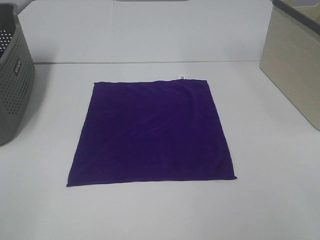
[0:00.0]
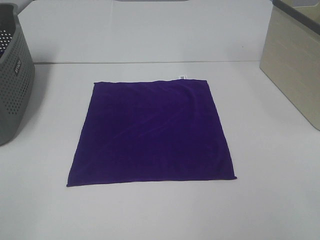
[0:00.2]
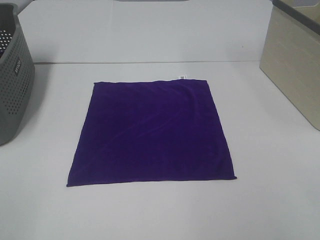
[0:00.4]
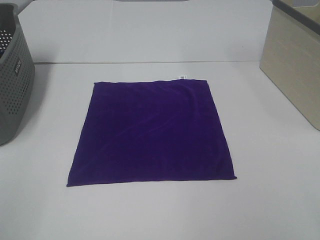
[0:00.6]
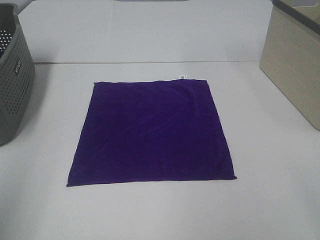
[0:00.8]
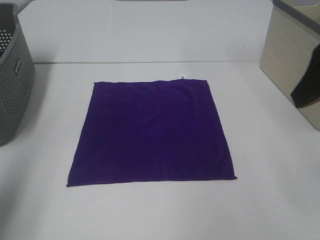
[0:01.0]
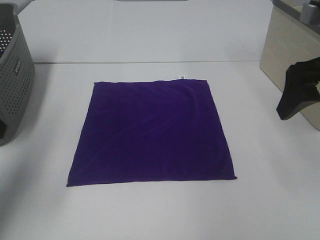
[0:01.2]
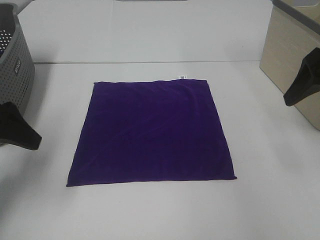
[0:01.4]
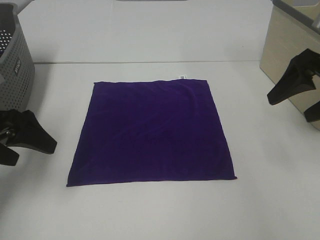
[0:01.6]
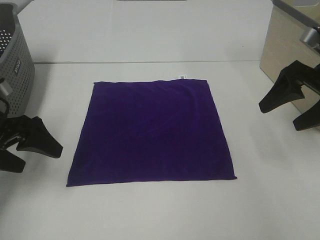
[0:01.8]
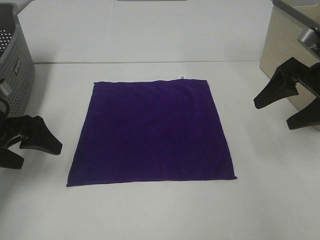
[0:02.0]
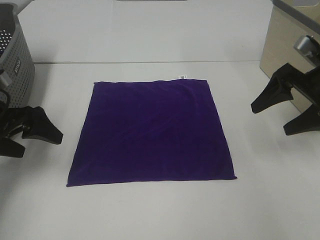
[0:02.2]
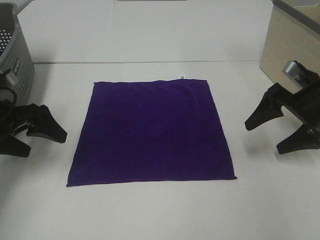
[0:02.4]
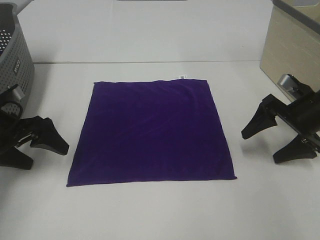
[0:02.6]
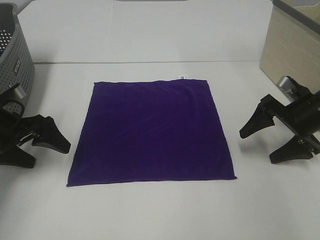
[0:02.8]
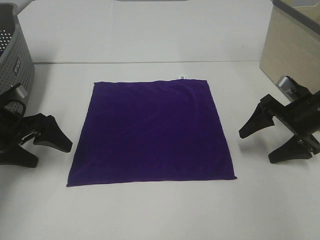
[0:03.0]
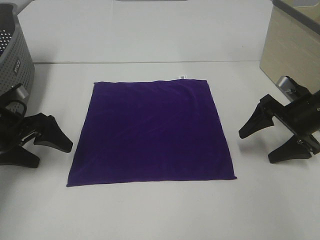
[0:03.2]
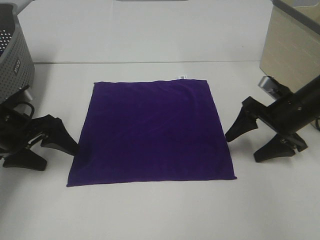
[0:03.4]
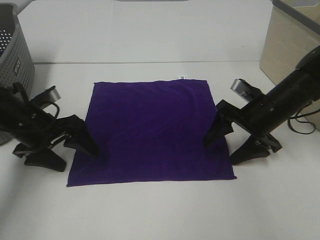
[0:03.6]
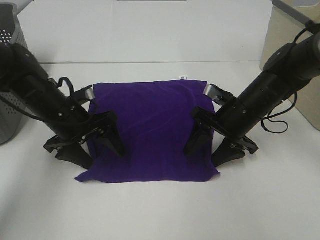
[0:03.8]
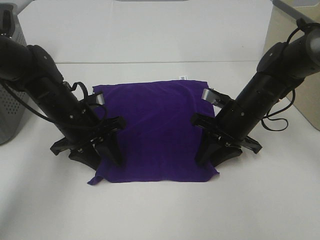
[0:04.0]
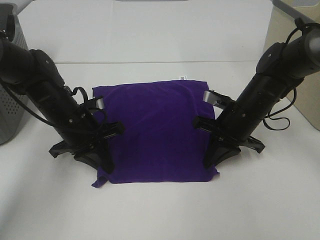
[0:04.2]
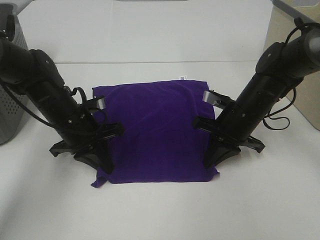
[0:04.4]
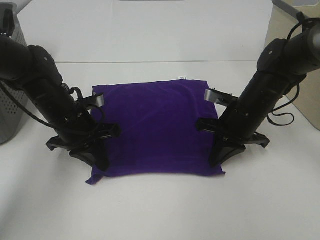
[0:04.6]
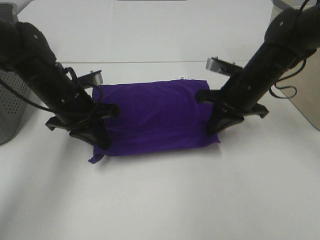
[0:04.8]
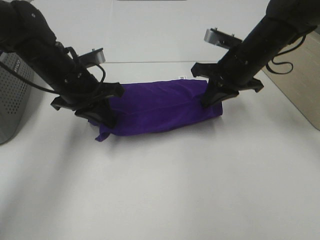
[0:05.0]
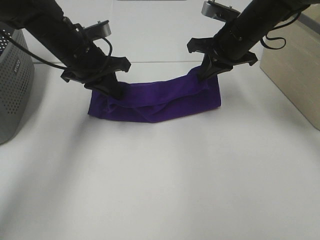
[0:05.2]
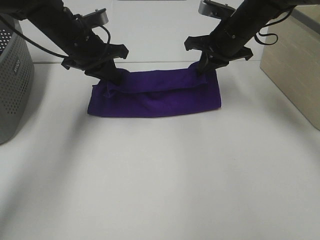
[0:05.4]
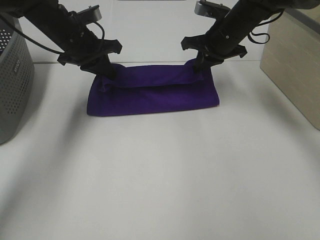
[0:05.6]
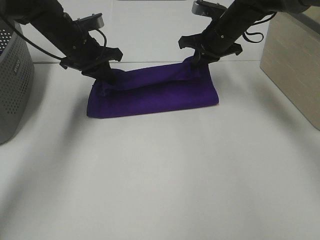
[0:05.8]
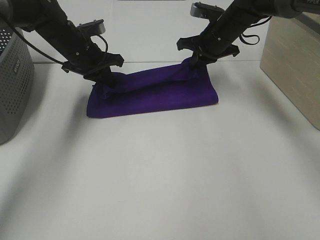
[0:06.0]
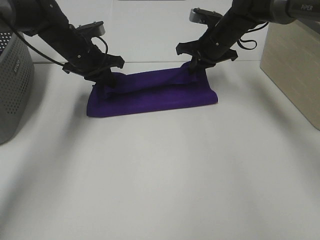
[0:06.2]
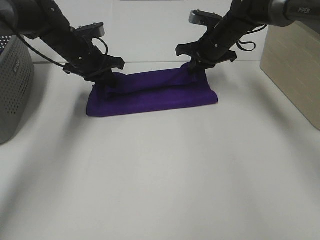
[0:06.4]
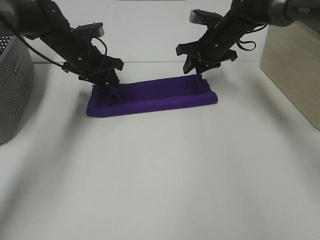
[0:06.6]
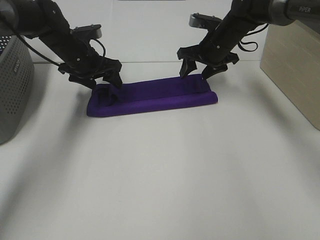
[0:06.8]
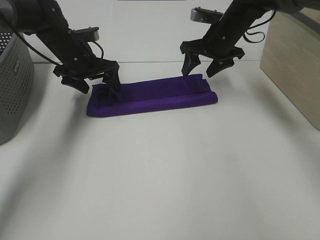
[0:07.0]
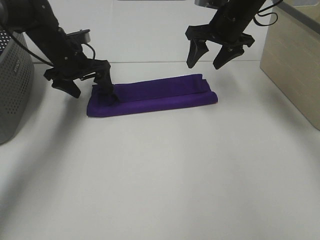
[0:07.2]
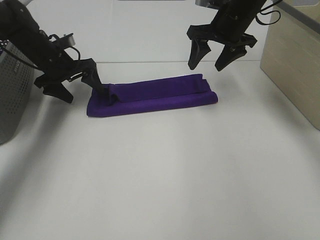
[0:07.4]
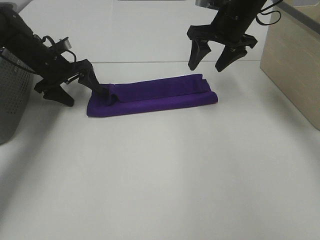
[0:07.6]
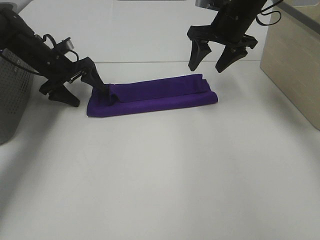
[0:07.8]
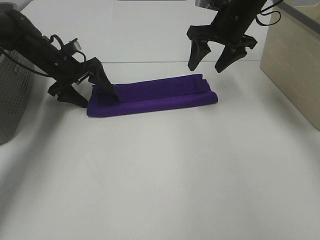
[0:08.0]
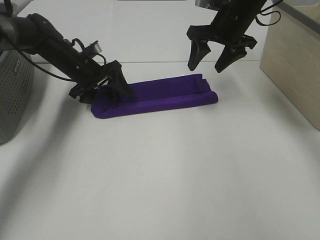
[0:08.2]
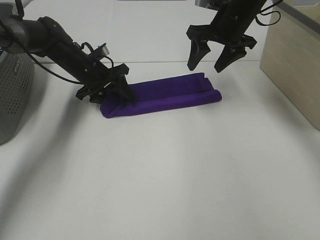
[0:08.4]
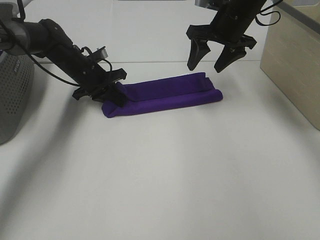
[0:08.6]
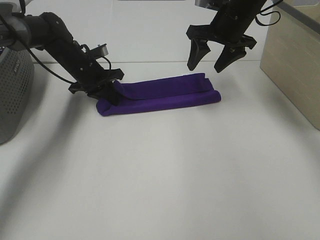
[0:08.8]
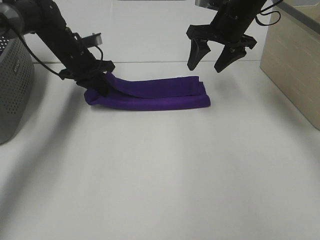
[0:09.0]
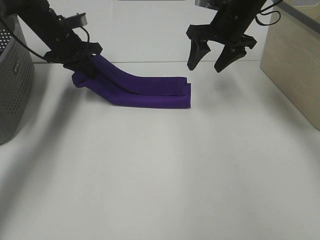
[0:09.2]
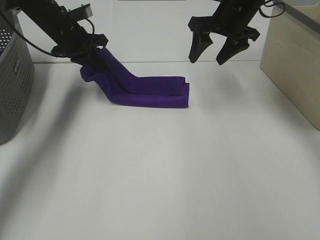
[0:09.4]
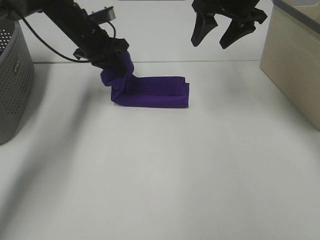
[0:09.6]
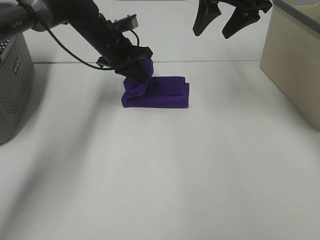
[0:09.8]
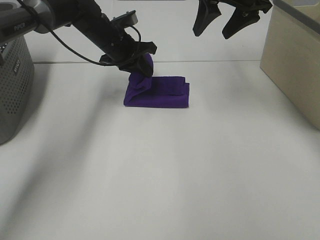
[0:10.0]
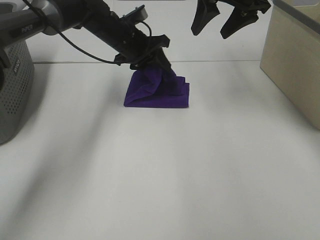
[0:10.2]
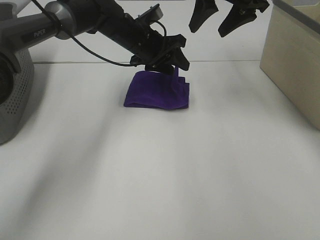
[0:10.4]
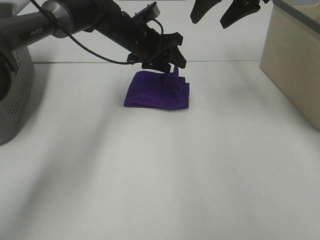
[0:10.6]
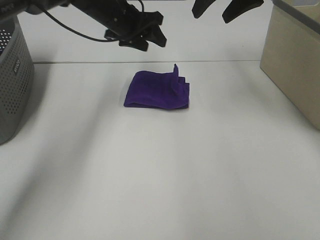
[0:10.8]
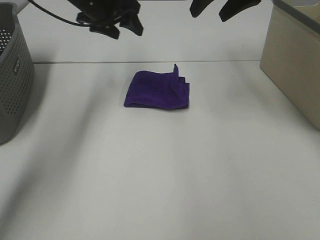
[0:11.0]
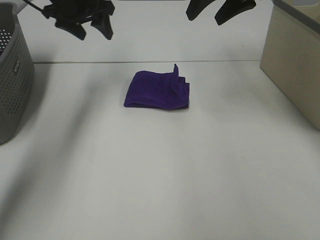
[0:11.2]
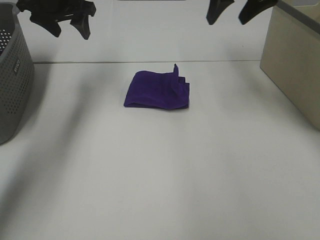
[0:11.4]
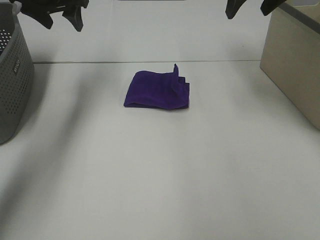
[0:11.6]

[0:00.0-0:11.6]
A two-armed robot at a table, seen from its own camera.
Task of the whole recording: Fold towels.
Step, 0:00.0 to 0:04.6: Left hand: grab the bottom left corner of purple towel.
Step, 0:00.0 to 0:04.6: Right hand: grab the bottom right corner of purple towel.
Step, 0:04.8 to 0:06.4: Left hand: fold the purple towel up.
Step, 0:04.8 to 0:06.4: Right hand: fold the purple towel up.
Step, 0:06.6 to 0:10.2: Left hand: fold the purple towel from left to right.
0:00.0 to 0:01.4: Both grippers move forward, about 25 cm.
0:01.4 to 0:02.8: The right gripper is displaced downward by approximately 15 cm, while the left gripper shifts approximately 10 cm downward and forward.
0:02.8 to 0:04.4: The left gripper goes roughly 15 cm to the right, and closes; the right gripper goes about 15 cm to the left, and closes.
0:04.4 to 0:05.8: Both grippers move forward and upward, roughly 15 cm.
0:05.8 to 0:07.2: The right gripper opens. Meanwhile the left gripper shifts by roughly 5 cm, and opens.
0:07.2 to 0:08.8: The left gripper shifts by some 5 cm, and closes up.
0:08.8 to 0:10.2: The left gripper is displaced to the right and upward by about 15 cm, and opens its fingers; the right gripper travels upward by roughly 10 cm.
0:10.2 to 0:11.6: The left gripper is displaced to the left and upward by about 20 cm; the right gripper shifts by about 5 cm.

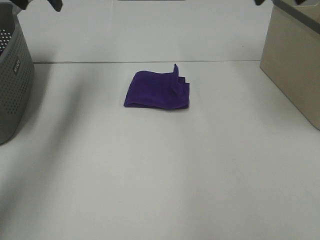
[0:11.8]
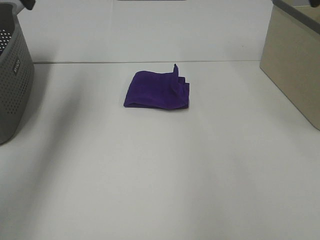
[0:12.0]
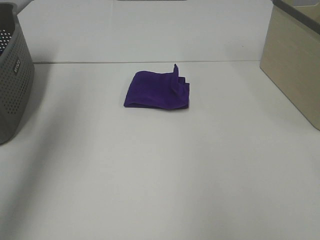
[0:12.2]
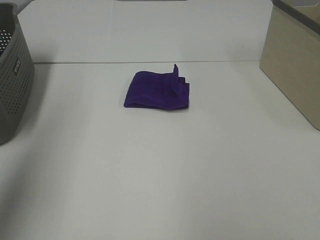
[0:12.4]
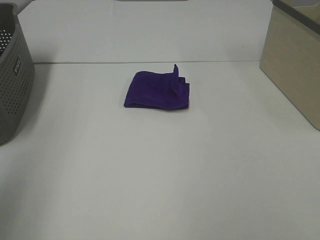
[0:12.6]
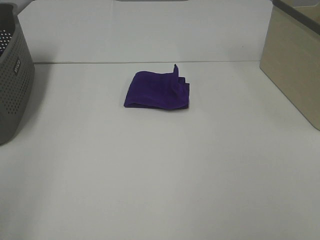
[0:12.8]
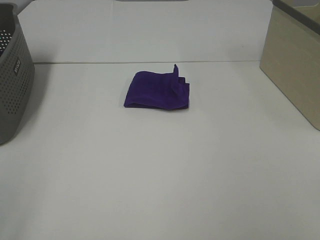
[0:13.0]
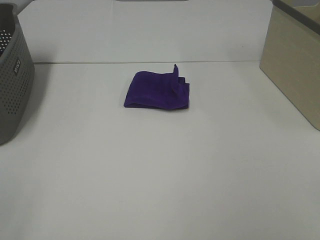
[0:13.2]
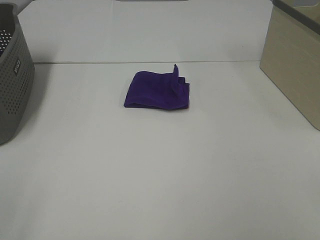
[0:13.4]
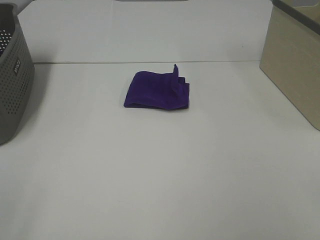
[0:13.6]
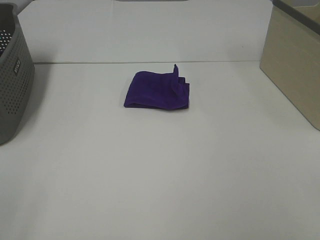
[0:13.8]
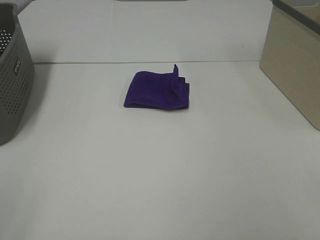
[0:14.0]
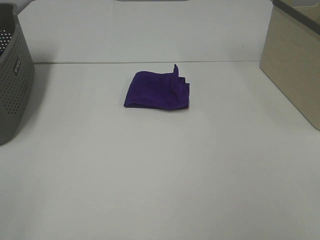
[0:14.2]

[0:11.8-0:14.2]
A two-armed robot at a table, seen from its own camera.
Task of the whole recording: Fold towels.
0:11.8 to 0:13.0: The grippers both shift backward by some 40 cm.

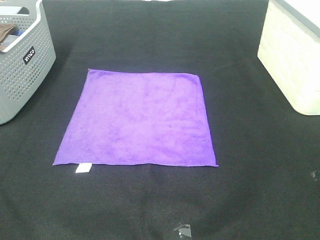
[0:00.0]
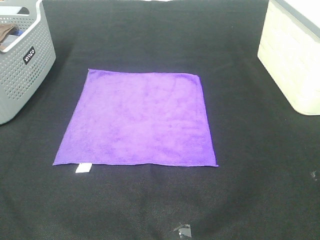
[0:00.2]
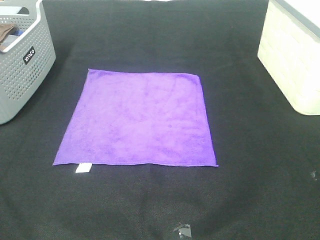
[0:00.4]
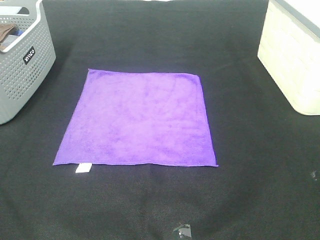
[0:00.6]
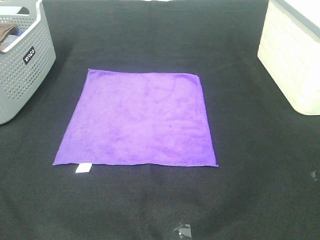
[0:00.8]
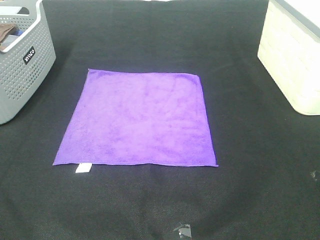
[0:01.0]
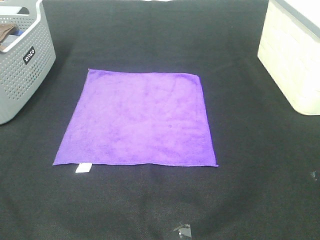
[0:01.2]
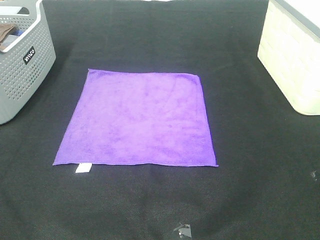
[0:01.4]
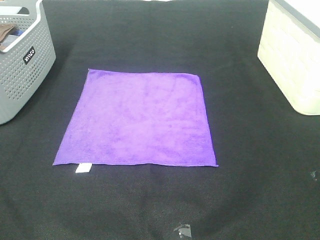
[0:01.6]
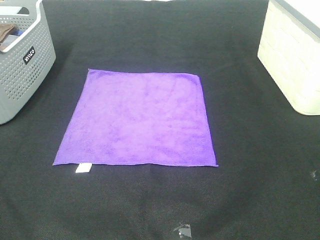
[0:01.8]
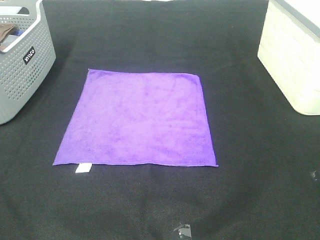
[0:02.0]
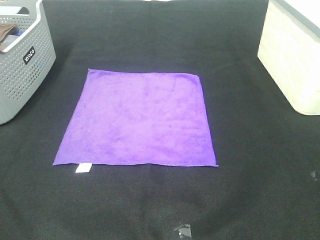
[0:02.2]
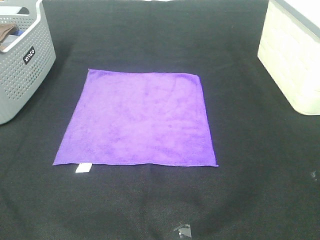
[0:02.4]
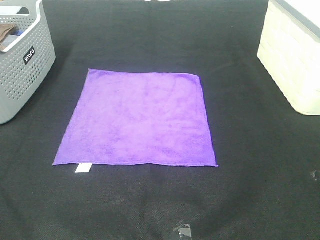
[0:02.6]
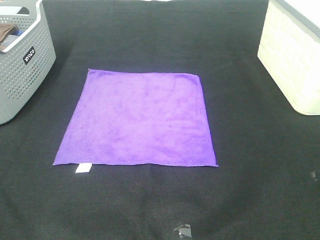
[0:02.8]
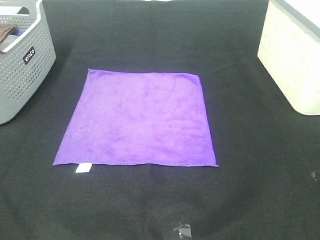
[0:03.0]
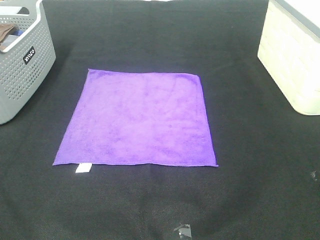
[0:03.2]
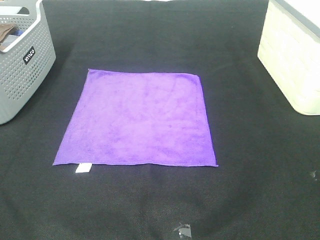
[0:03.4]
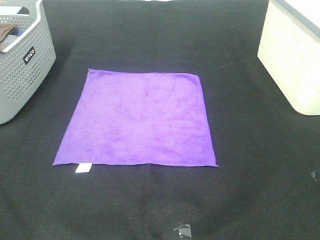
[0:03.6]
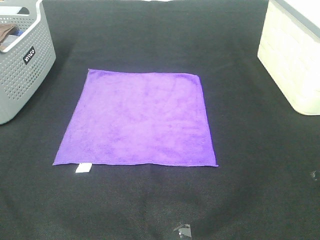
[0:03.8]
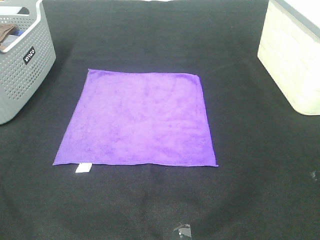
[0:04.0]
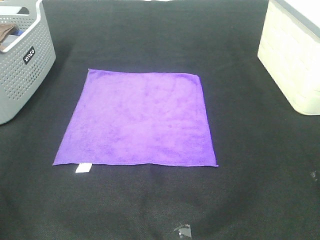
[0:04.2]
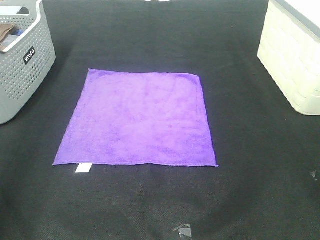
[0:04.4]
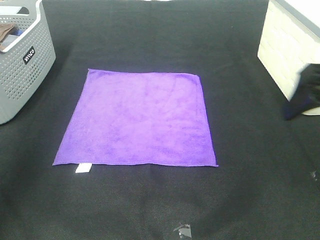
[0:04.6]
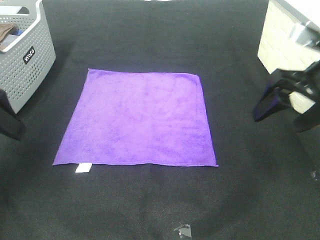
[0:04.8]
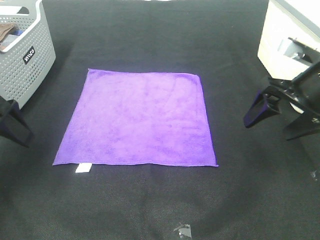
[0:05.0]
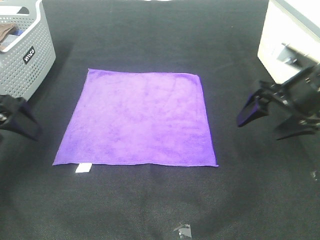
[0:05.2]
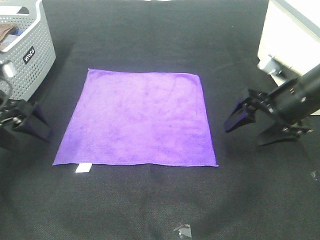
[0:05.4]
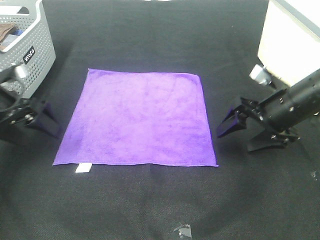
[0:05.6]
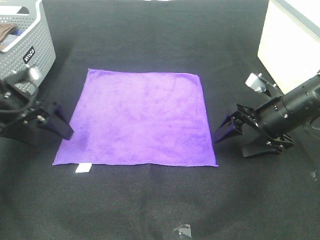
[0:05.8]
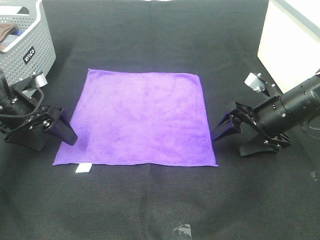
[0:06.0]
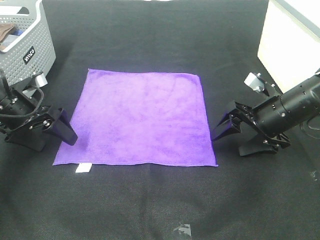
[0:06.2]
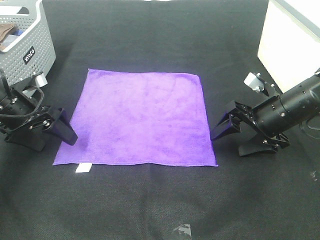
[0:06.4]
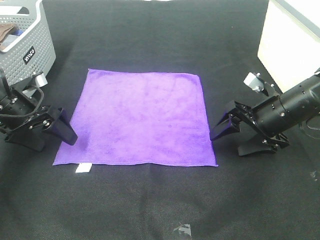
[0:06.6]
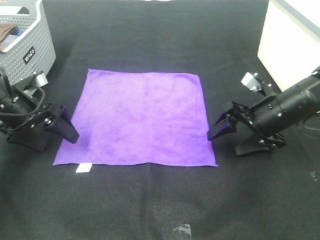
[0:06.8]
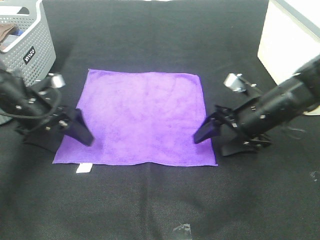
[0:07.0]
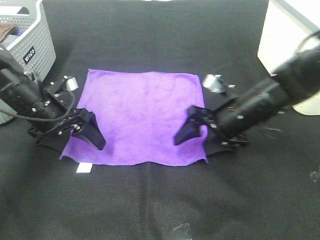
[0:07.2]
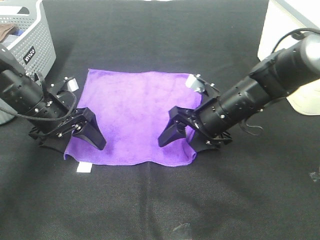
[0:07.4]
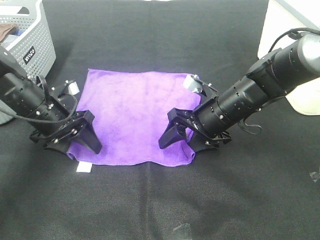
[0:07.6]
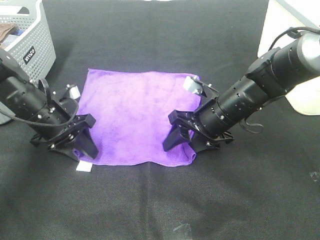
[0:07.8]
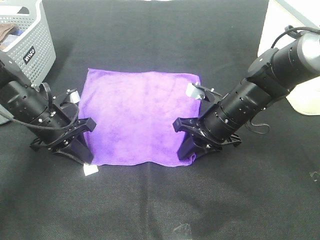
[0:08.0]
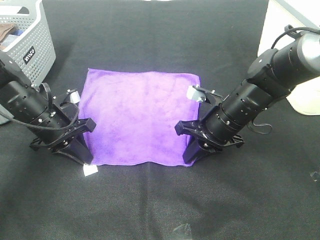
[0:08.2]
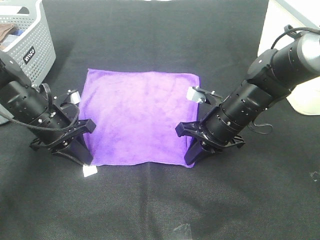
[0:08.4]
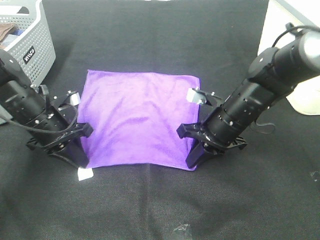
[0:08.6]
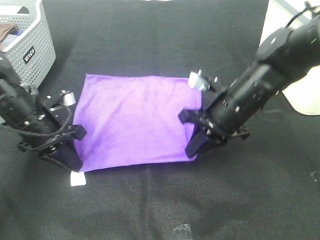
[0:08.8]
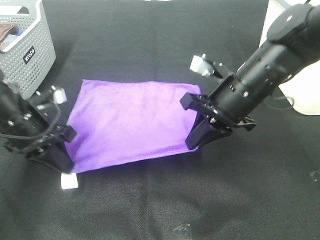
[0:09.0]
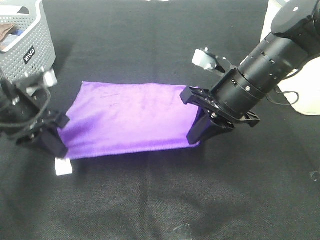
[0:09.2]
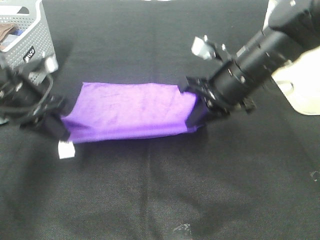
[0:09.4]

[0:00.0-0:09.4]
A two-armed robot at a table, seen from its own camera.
Task of the whole recording: Fold towels.
Step, 0:00.0 to 0:08.0: Left hand: grab the bottom left corner of purple towel.
Step, 0:00.0 to 0:08.0: Right hand: grab the bottom right corner of purple towel.
0:00.0 to 0:01.6: Neither gripper changes place.
0:03.2 to 0:04.8: The grippers both shift forward by roughly 25 cm.
0:04.8 to 0:06.2: The left gripper shifts about 15 cm downward and forward. The right gripper moves downward, about 10 cm.
0:06.2 to 0:07.8: The right gripper travels to the left by about 10 cm; the left gripper moves to the right, some 5 cm, and closes up.
0:07.8 to 0:09.4: Both grippers travel together upward, roughly 10 cm. The right gripper closes up.
